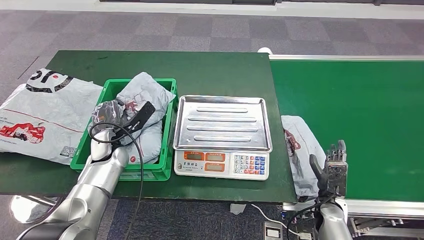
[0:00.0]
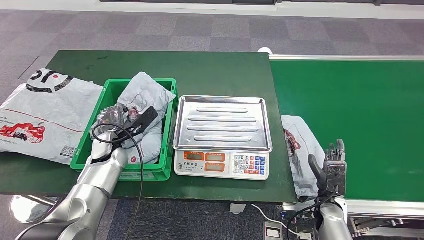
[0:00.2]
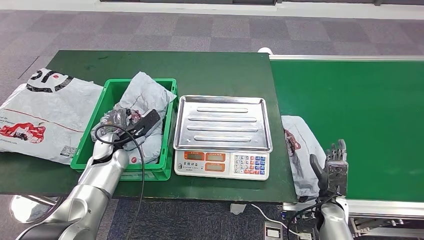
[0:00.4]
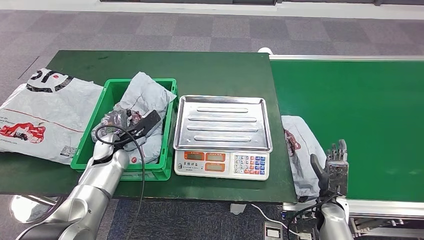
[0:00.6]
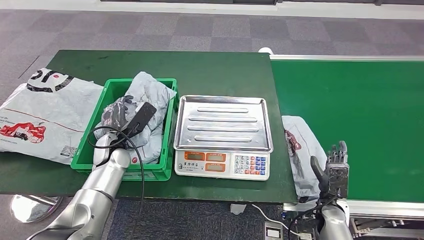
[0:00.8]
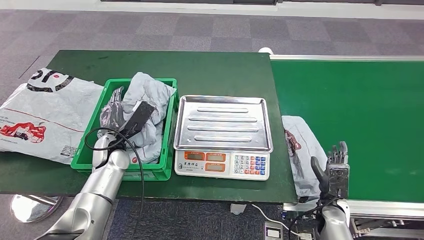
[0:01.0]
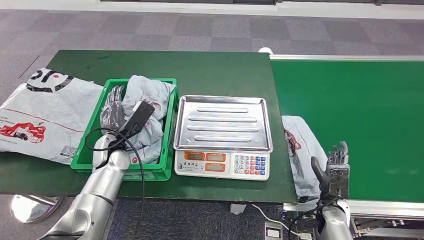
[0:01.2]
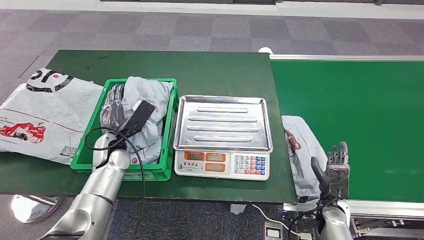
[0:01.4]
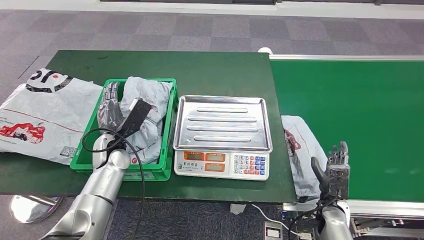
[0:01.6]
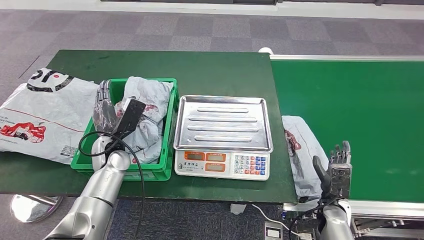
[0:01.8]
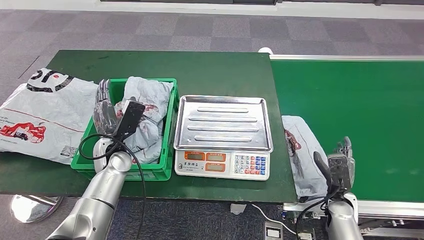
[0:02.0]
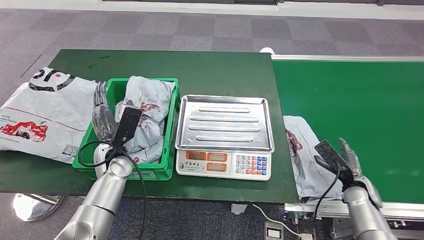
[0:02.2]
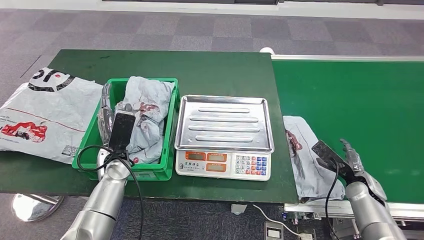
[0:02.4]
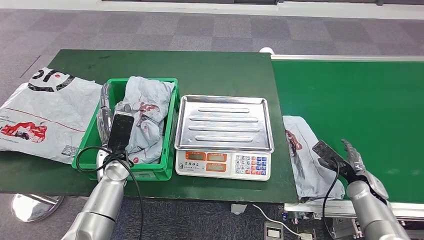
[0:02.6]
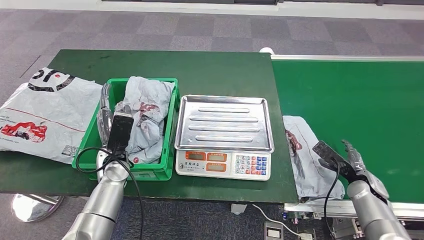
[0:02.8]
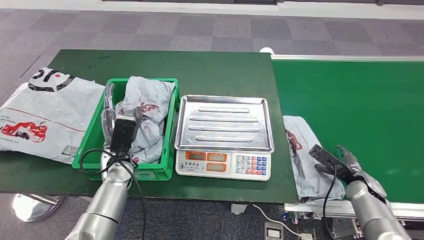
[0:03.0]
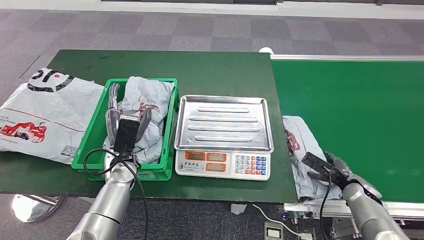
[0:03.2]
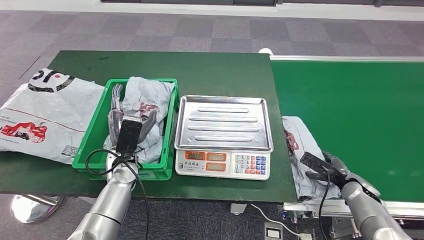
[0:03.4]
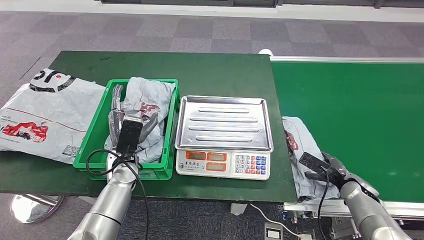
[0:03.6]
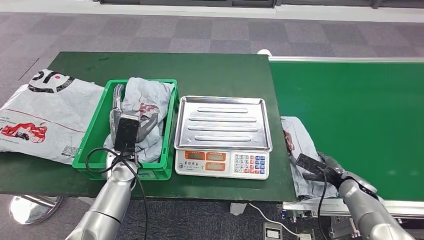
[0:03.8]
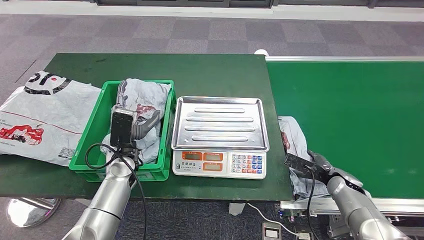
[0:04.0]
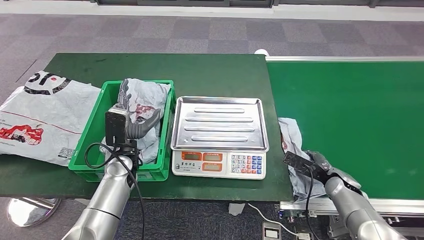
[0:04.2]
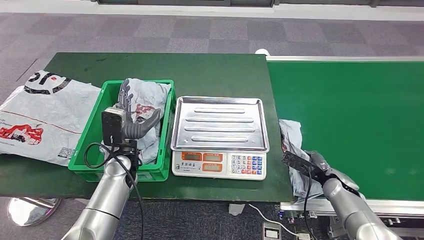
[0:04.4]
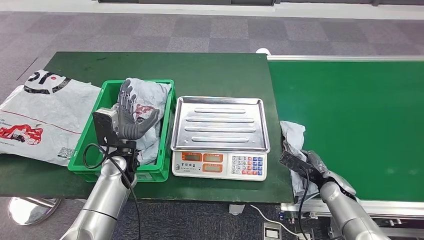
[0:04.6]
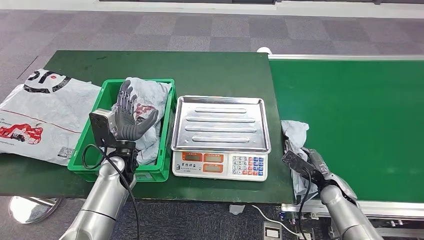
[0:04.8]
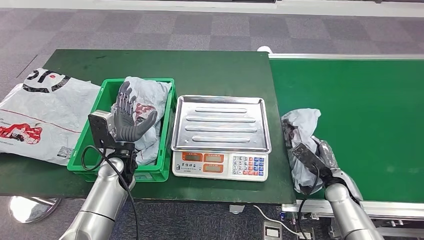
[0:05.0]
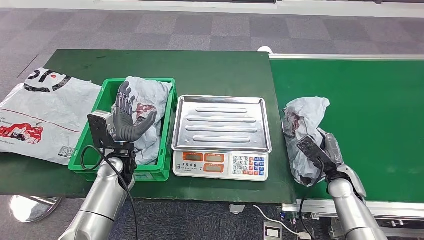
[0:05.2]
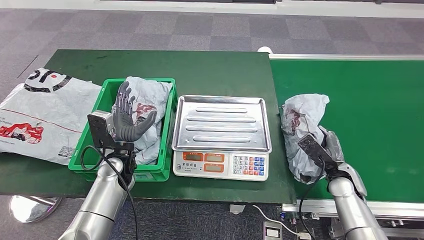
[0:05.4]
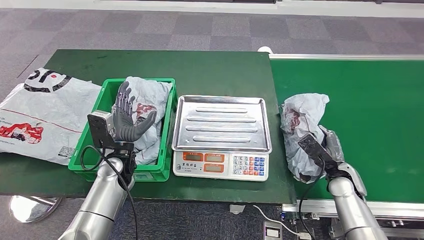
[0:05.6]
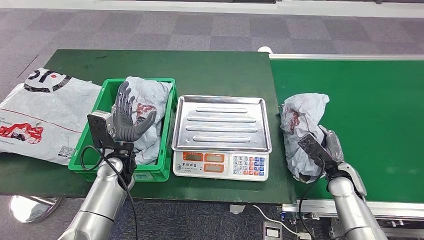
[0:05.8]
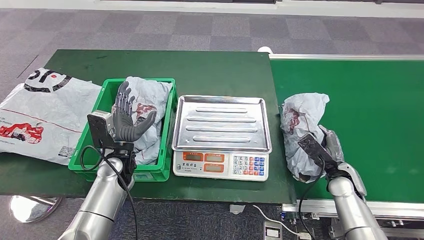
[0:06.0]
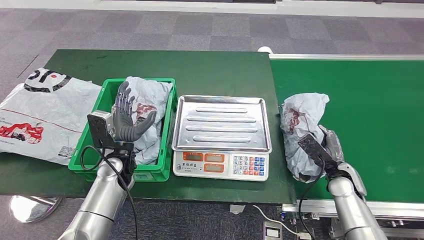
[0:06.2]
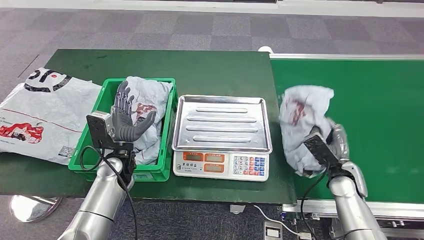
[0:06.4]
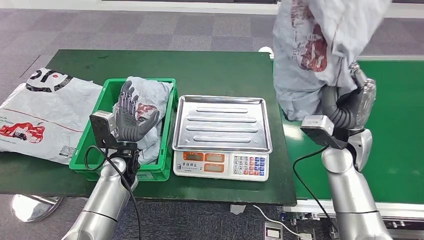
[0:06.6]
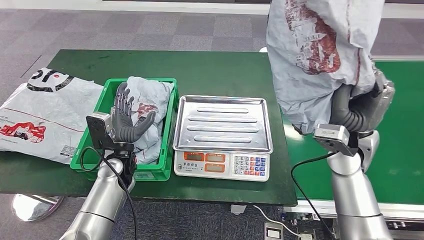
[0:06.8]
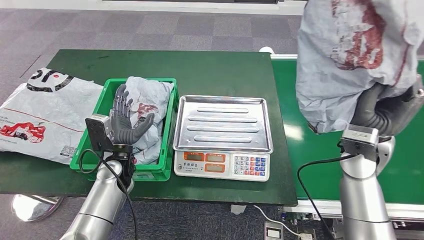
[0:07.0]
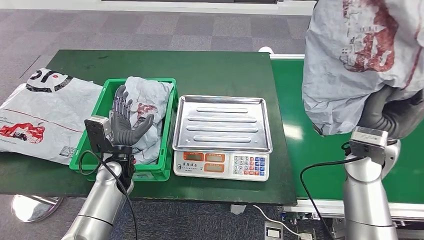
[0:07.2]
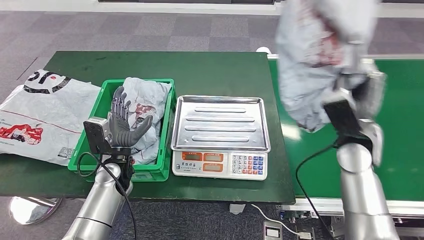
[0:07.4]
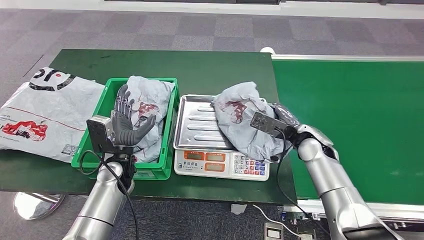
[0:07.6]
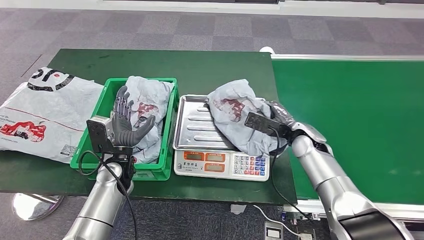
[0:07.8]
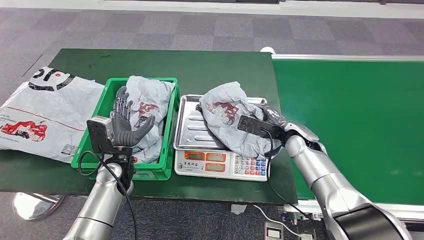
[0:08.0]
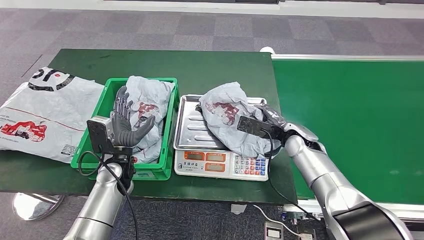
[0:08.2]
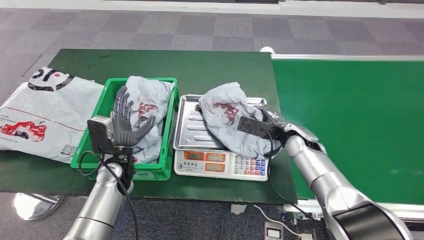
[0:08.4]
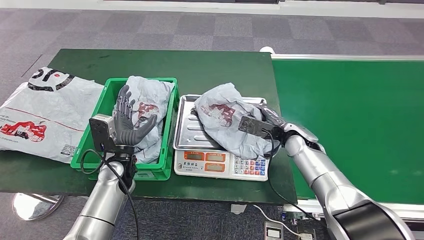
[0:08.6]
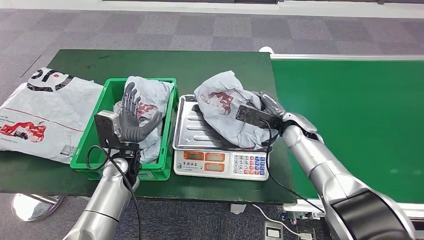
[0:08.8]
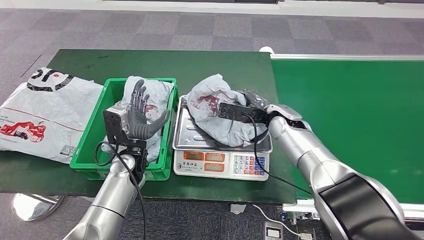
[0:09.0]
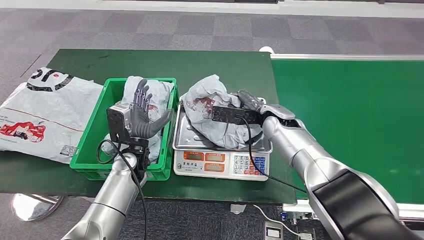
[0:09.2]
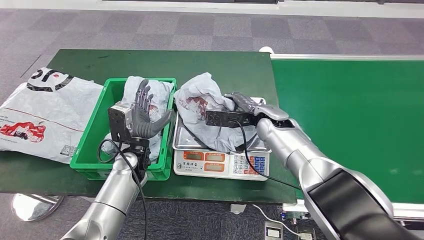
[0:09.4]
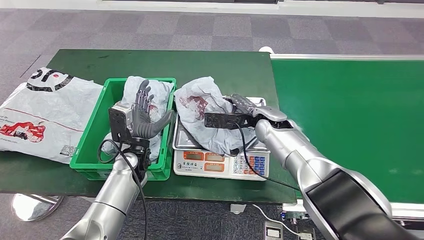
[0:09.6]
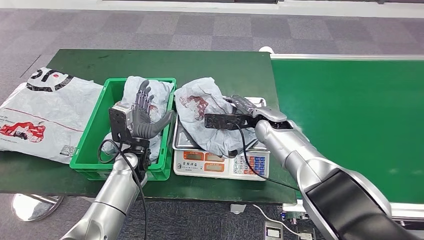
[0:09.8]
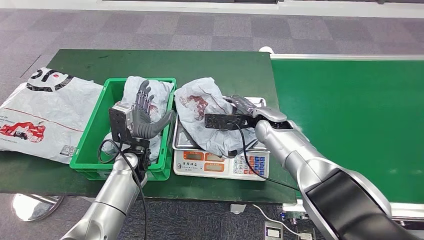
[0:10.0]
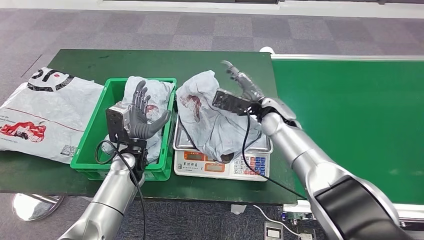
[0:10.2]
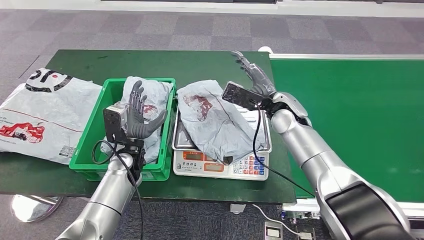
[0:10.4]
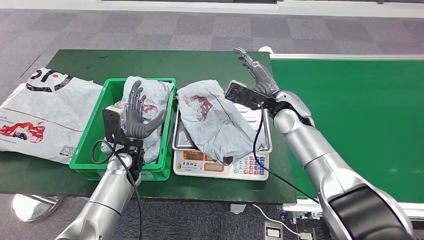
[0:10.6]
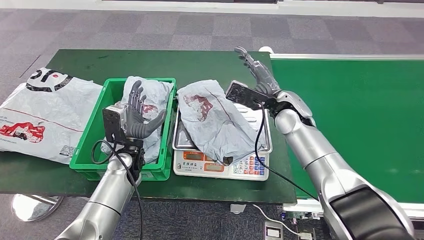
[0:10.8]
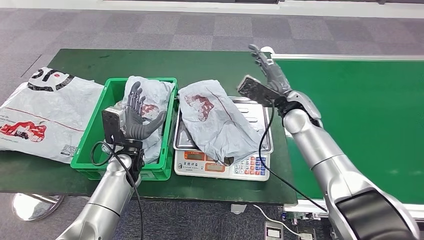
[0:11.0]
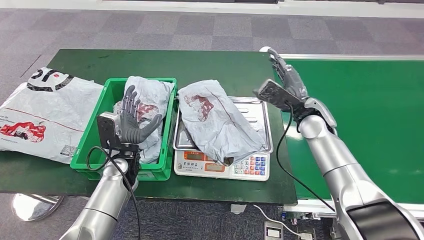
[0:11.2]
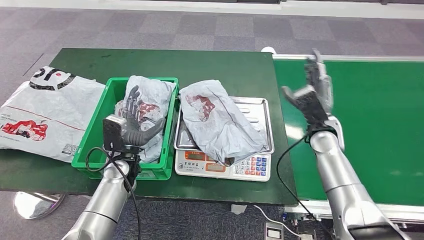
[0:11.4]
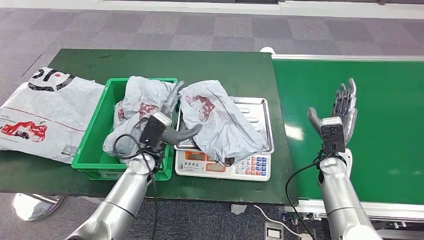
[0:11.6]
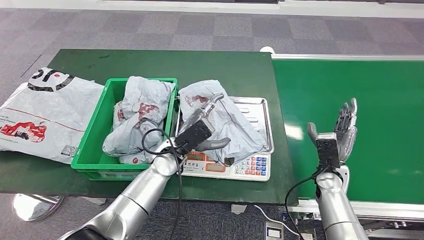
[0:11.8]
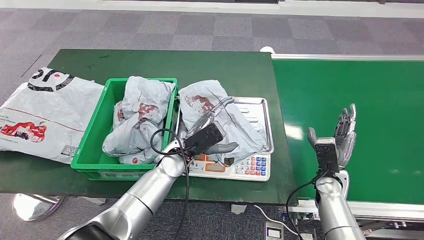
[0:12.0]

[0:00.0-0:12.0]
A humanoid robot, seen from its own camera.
Step, 0:00.0 to 0:01.6: Place the parcel into the delivery box.
Step, 0:02.0 to 0:05.4: Pick up the parcel from the conveyor belt.
Step, 0:05.6 to 0:09.6: Place the parcel onto the inbound machine.
0:01.6 to 0:03.0: The right hand goes approximately 10 cm to the right and forward.

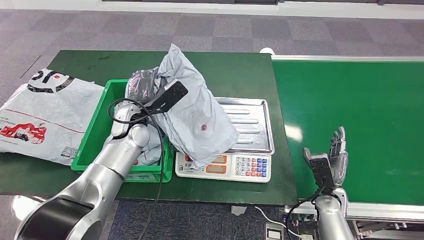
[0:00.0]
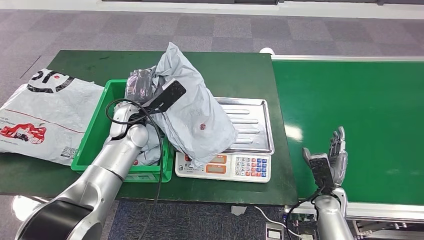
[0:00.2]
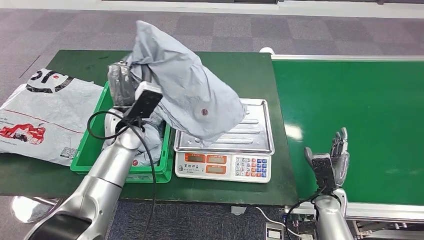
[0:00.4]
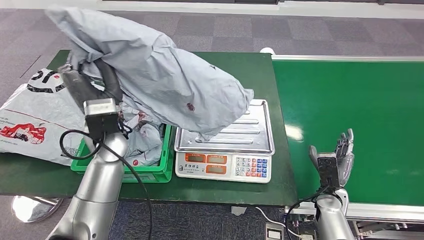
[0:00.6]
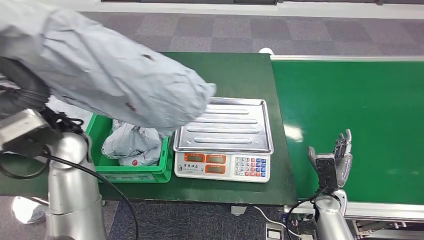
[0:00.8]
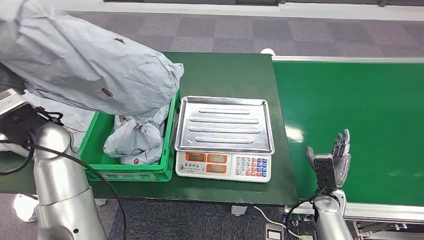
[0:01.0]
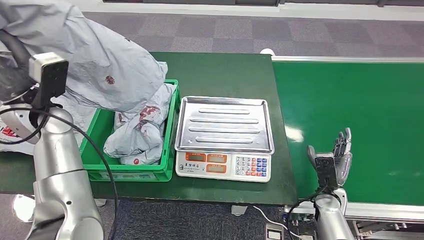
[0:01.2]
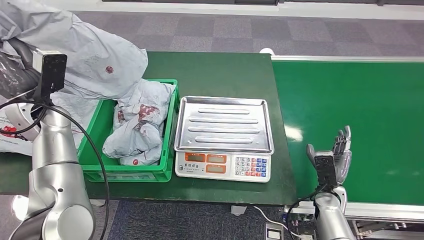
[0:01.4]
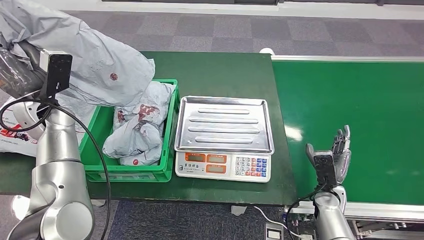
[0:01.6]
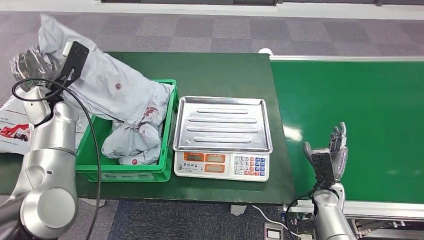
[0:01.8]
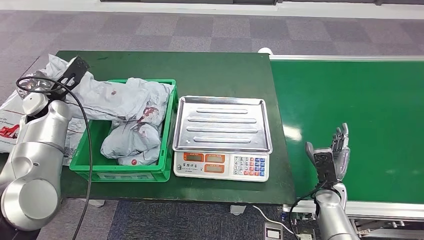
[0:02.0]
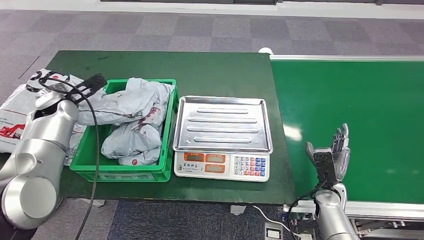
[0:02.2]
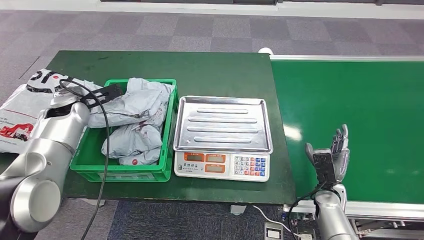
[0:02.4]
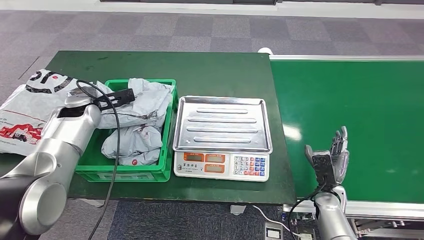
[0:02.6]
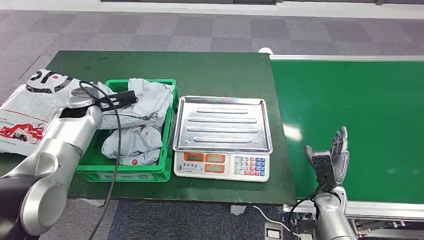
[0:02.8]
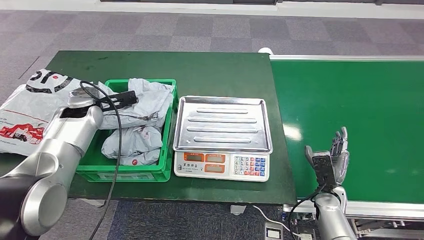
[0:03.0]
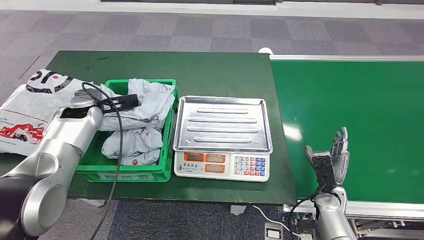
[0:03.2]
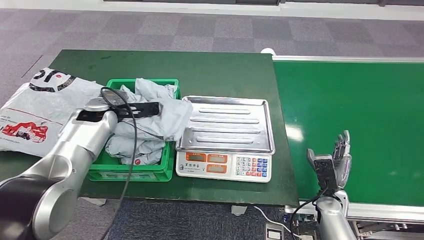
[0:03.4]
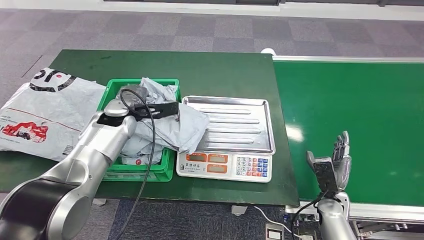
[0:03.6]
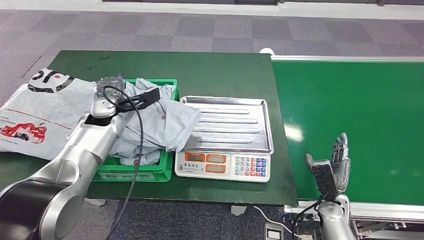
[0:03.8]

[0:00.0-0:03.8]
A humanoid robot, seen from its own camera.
Step, 0:00.4 to 0:03.8: Place the parcel into the delivery box.
0:02.6 to 0:03.8: The left hand travels to the right by approximately 5 cm.
